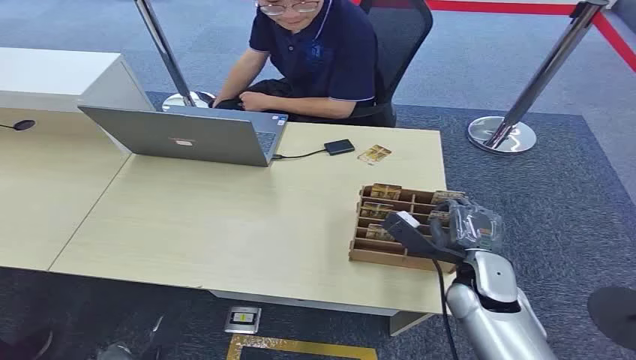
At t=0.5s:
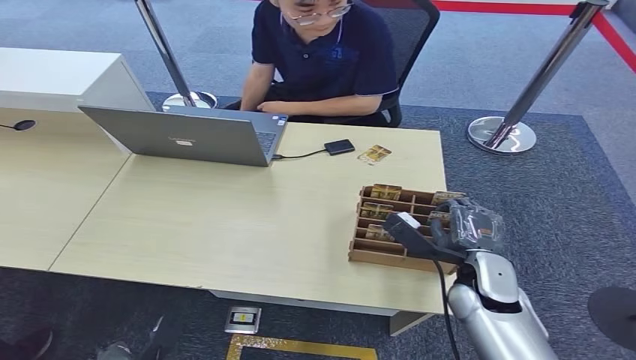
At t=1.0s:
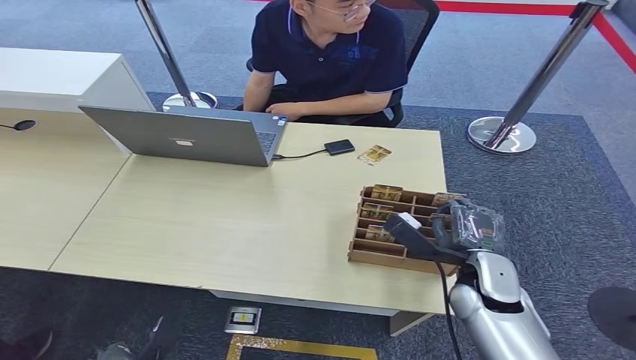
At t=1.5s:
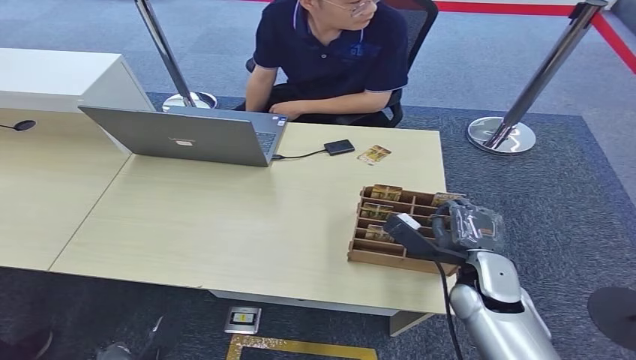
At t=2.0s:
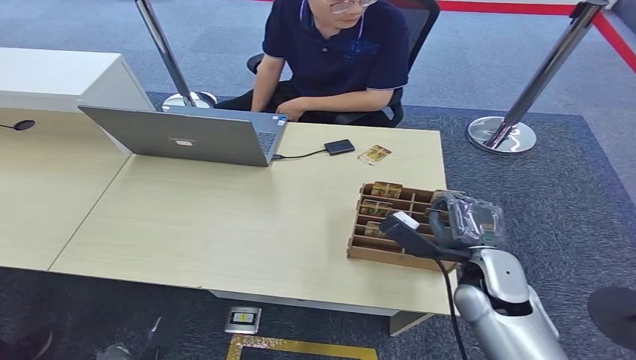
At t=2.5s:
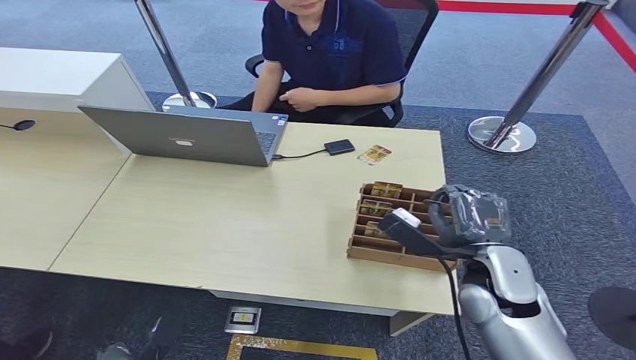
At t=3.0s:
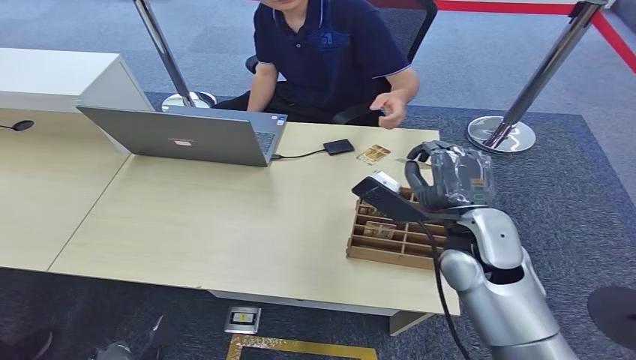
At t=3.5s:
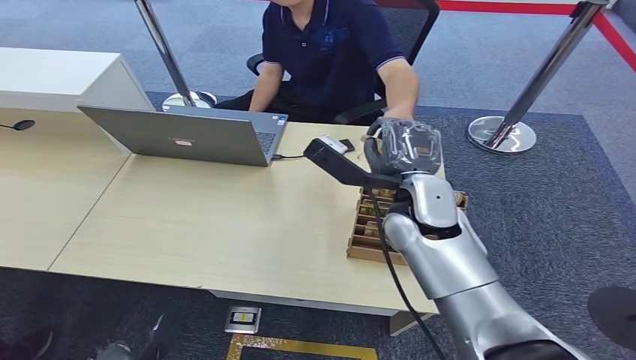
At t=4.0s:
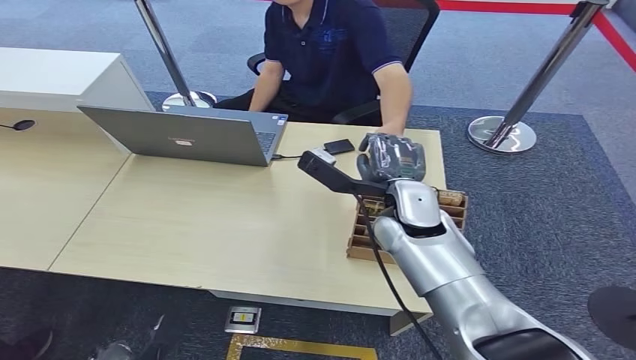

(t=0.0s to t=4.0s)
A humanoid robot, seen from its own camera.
Step, t=0.0s - t=2.0s: Pick up the key card from the card box.
Step, t=2.5s - t=4.0s: Hand the key card to the target.
t=2.0s - t=4.0s: The right hand travels to the left, forward and upward by about 15 cm.
